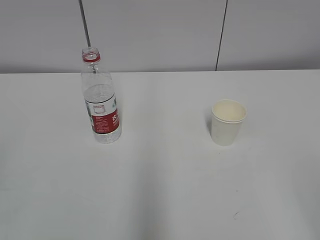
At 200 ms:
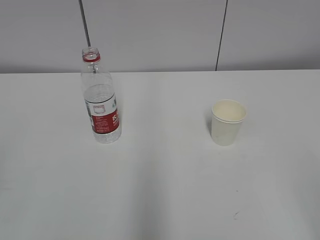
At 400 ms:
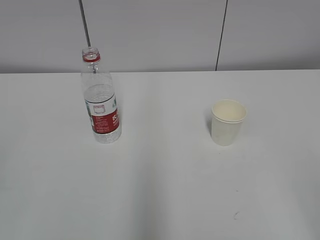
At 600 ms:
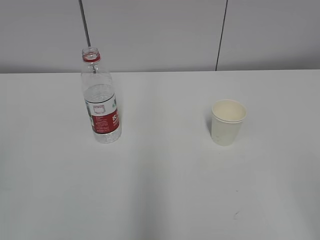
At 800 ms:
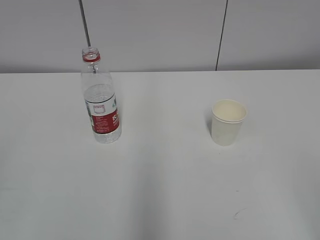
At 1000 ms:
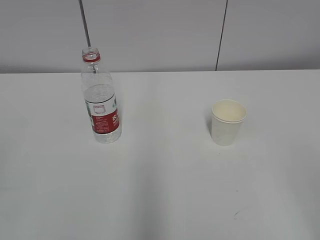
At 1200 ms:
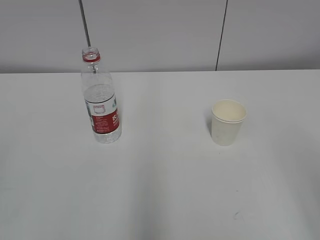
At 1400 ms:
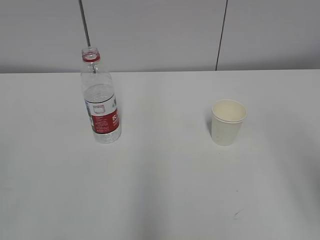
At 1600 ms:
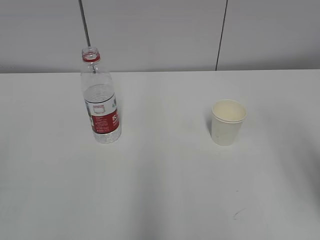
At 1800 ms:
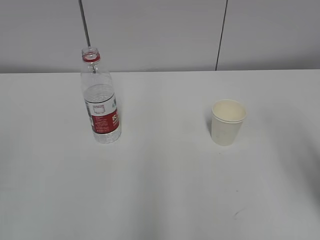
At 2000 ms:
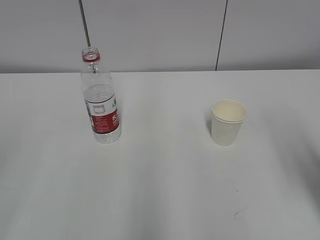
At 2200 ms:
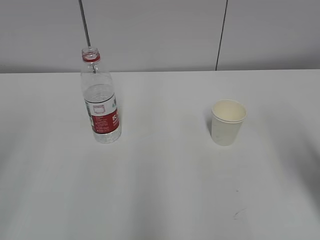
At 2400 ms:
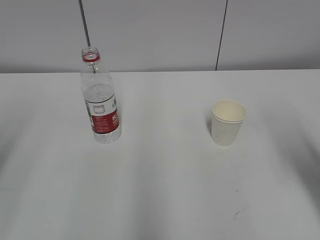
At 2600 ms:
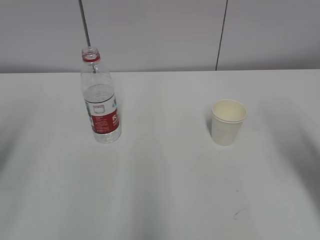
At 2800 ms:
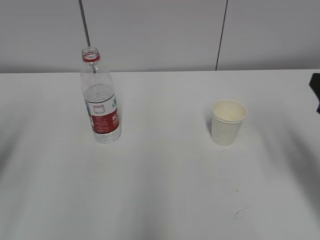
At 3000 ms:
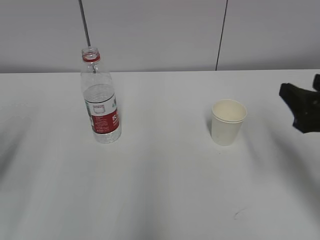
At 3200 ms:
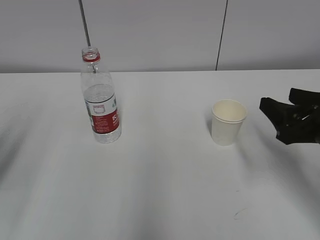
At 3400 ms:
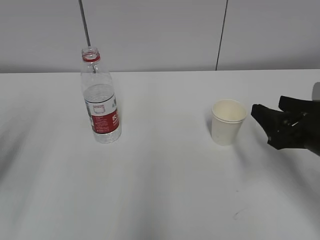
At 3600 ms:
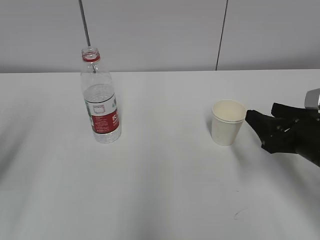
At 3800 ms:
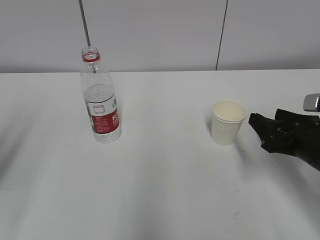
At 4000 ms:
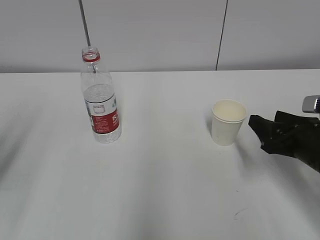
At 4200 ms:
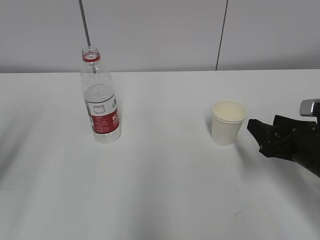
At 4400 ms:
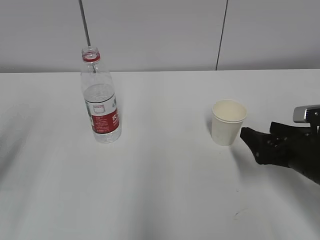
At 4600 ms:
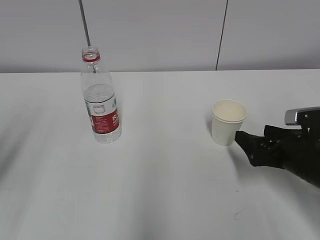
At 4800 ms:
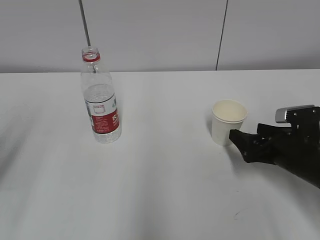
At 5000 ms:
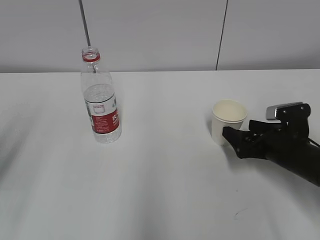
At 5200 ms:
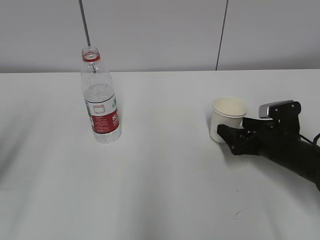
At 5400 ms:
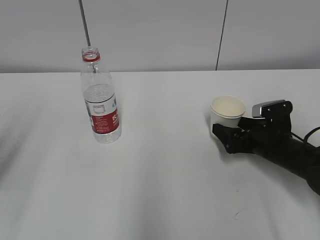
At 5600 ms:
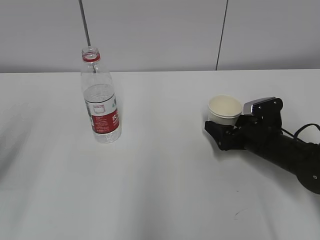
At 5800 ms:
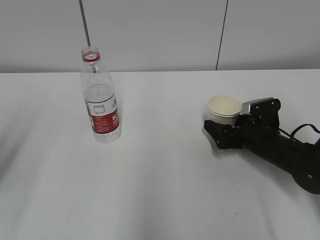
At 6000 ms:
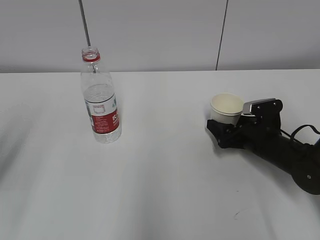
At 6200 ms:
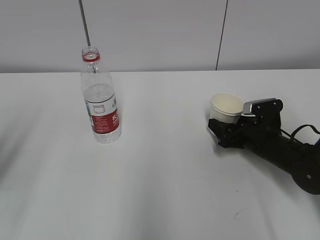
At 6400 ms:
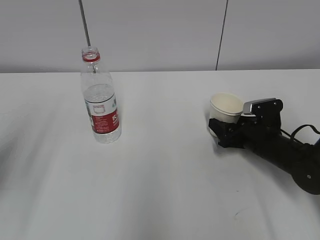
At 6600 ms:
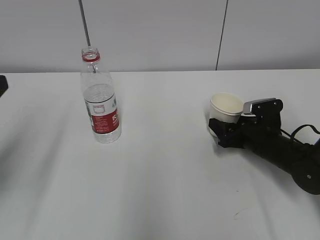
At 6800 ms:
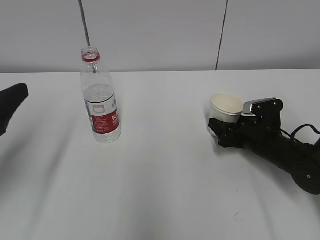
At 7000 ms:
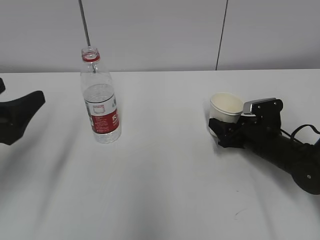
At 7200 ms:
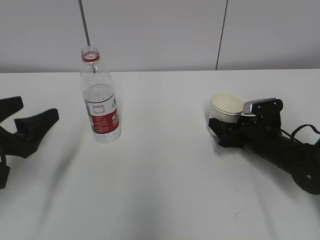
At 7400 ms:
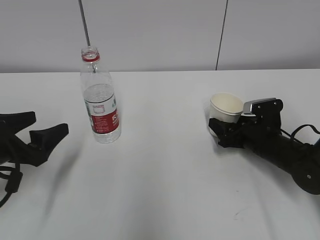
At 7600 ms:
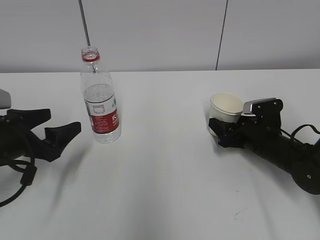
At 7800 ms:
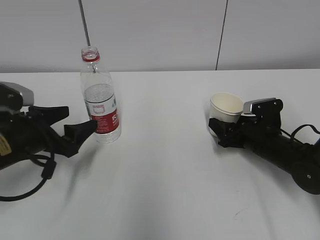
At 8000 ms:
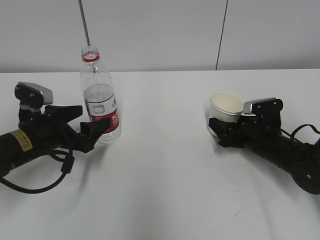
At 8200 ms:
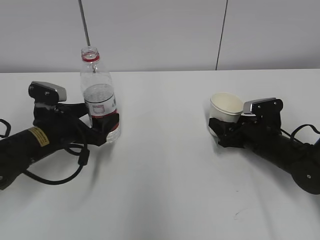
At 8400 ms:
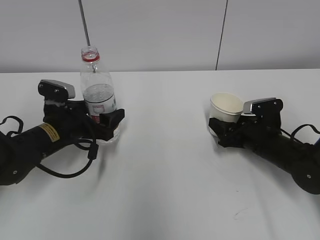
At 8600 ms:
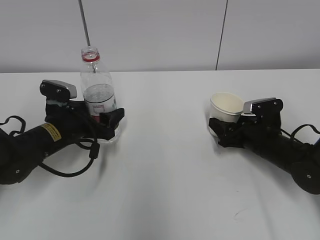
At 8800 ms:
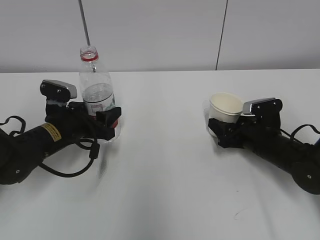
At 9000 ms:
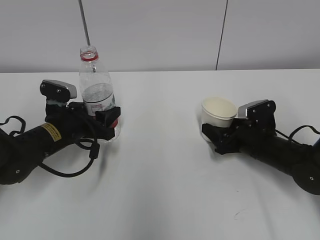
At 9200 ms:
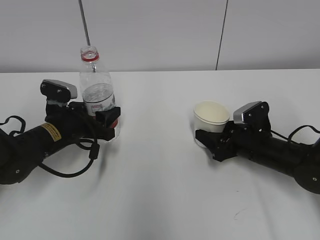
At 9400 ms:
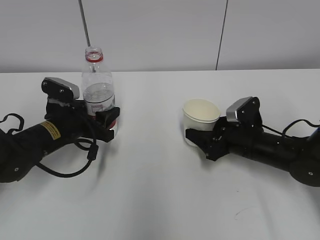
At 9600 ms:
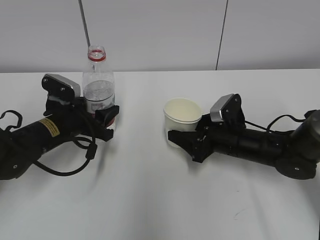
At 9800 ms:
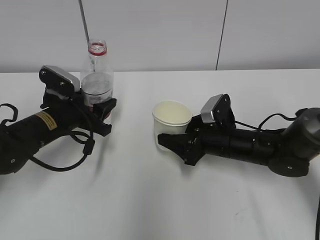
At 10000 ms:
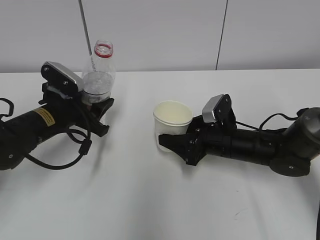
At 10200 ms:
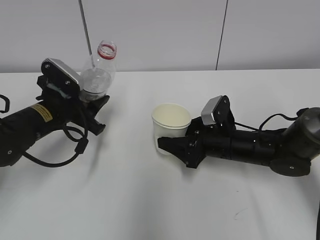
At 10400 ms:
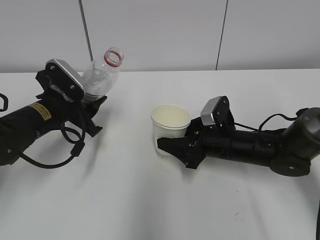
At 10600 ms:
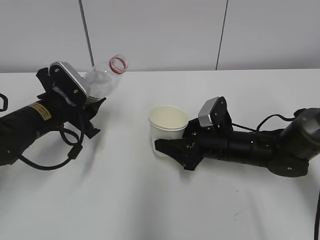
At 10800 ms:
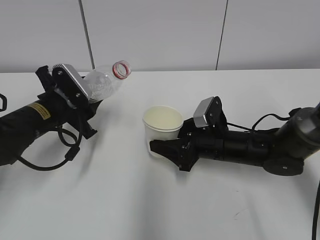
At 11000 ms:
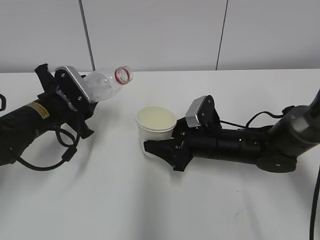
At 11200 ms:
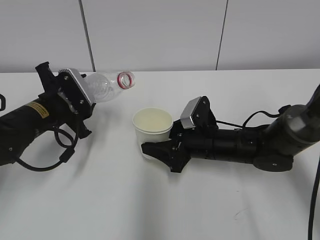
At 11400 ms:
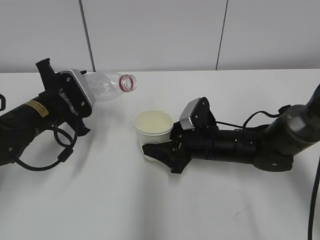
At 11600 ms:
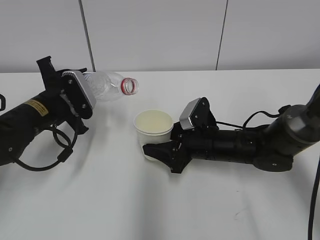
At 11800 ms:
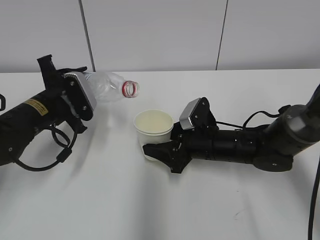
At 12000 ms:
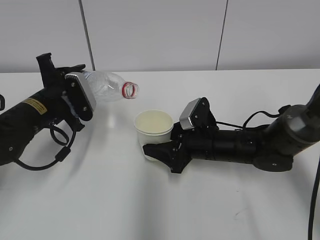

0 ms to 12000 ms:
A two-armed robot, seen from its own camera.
Step, 0 ms to 7200 ms: Grab the paper cup with the right hand.
Step, 7400 ms to 7800 ms: Grab the water bottle with the left hand.
Step, 8000 ms to 11200 ms: Lift the paper cup with the right hand.
1600 ms to 3000 ms: The right gripper heads forward and downward, covering roughly 15 cm. Meanwhile the left gripper goes some 15 cm forward.
3000 ms to 4400 ms: The right gripper moves downward, some 10 cm, and opens its fingers.
4400 ms to 6000 ms: The right gripper heads forward and downward, covering about 10 cm.
6000 ms to 7600 ms: The right gripper closes up; the left gripper goes approximately 15 cm downward and forward, and opens its fingers.
7600 ms to 9000 ms: The left gripper moves forward and to the right, approximately 10 cm, and closes.
9000 ms to 10400 ms: The right gripper goes about 10 cm to the left.

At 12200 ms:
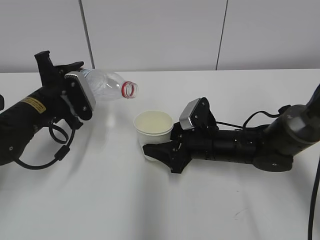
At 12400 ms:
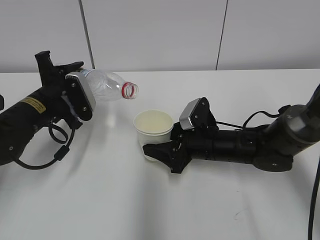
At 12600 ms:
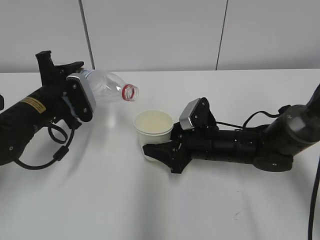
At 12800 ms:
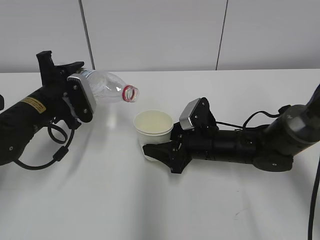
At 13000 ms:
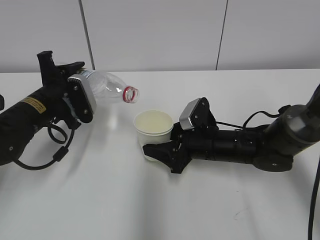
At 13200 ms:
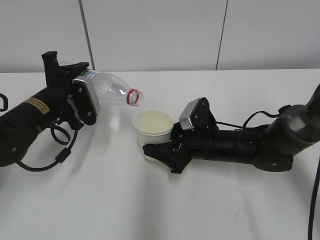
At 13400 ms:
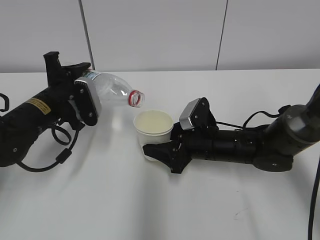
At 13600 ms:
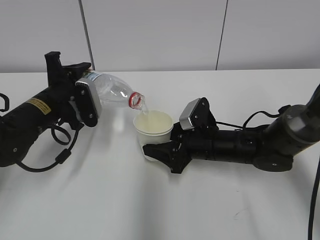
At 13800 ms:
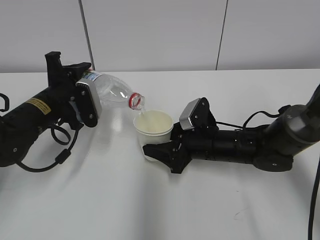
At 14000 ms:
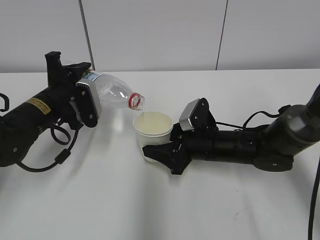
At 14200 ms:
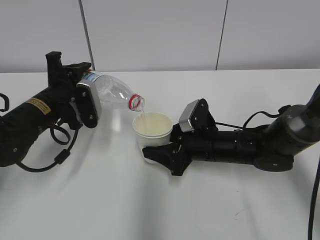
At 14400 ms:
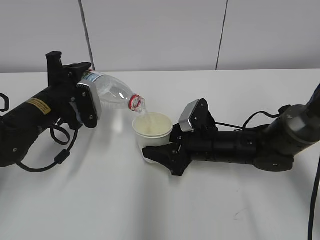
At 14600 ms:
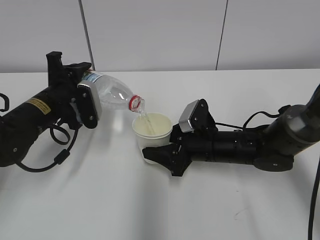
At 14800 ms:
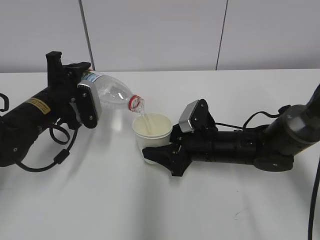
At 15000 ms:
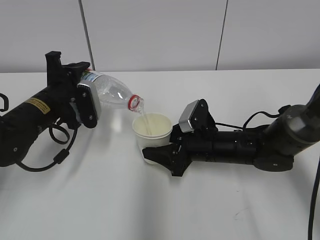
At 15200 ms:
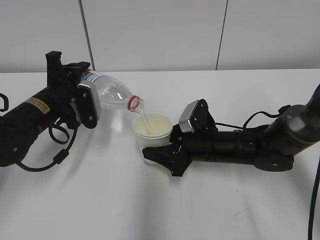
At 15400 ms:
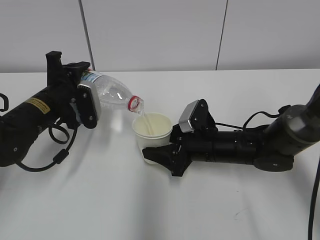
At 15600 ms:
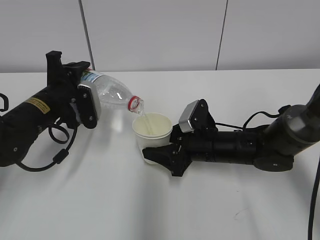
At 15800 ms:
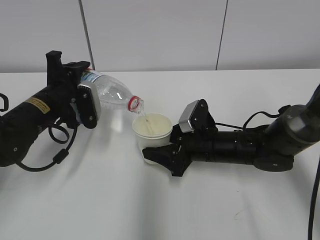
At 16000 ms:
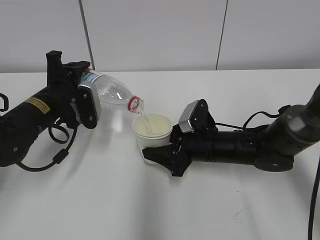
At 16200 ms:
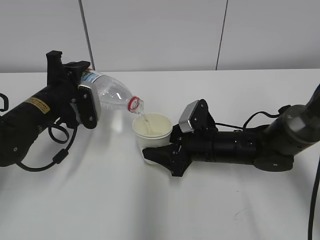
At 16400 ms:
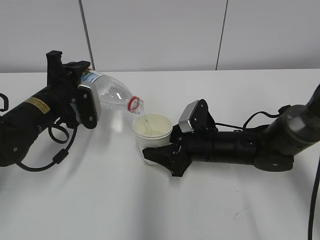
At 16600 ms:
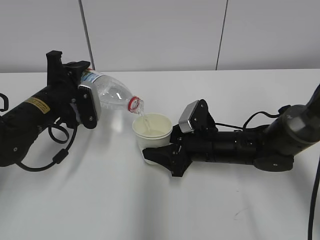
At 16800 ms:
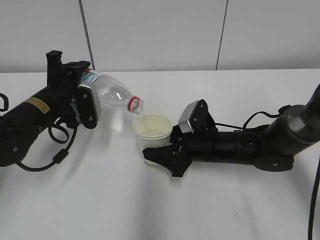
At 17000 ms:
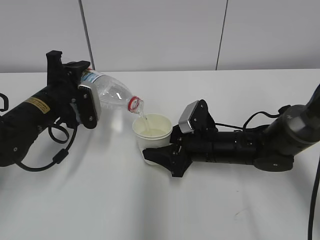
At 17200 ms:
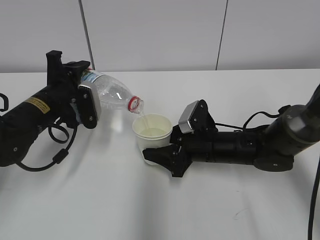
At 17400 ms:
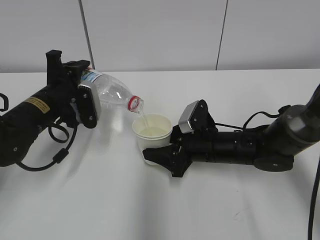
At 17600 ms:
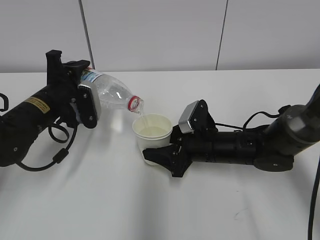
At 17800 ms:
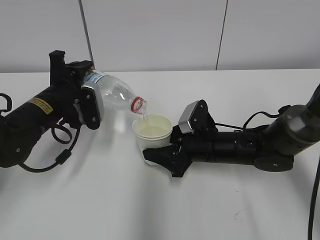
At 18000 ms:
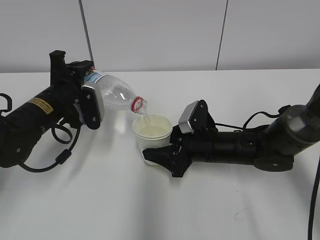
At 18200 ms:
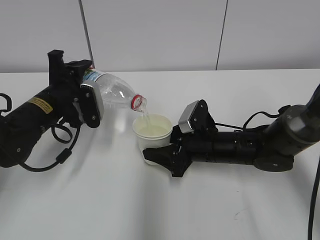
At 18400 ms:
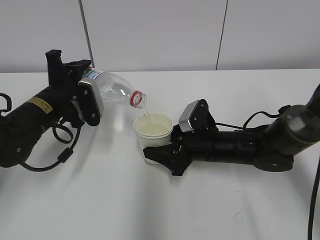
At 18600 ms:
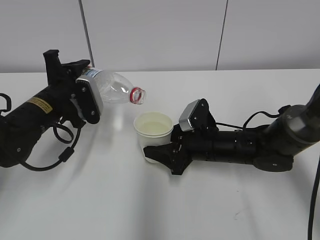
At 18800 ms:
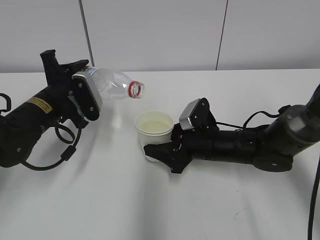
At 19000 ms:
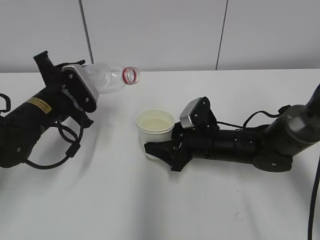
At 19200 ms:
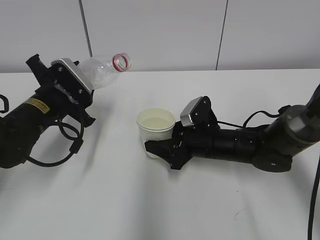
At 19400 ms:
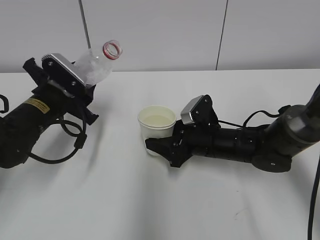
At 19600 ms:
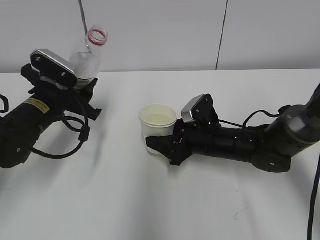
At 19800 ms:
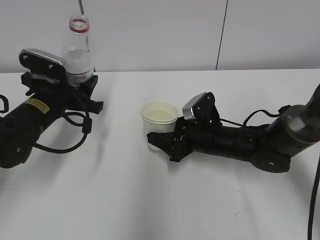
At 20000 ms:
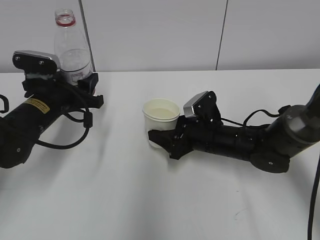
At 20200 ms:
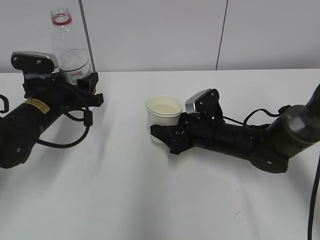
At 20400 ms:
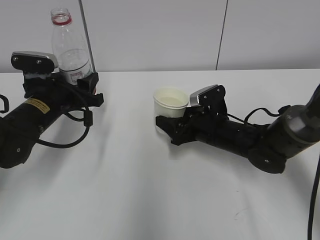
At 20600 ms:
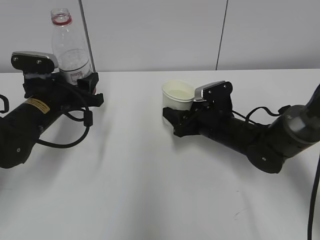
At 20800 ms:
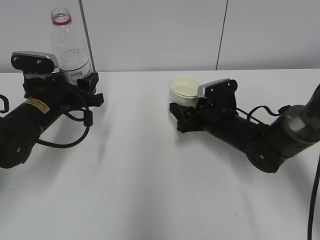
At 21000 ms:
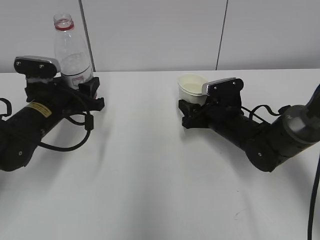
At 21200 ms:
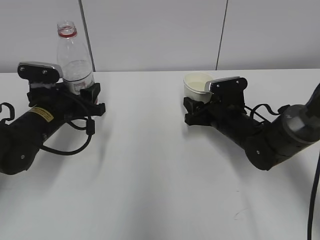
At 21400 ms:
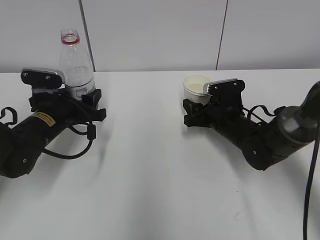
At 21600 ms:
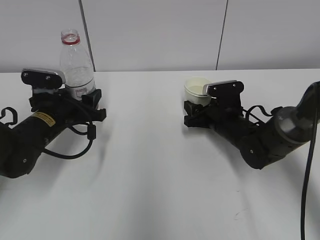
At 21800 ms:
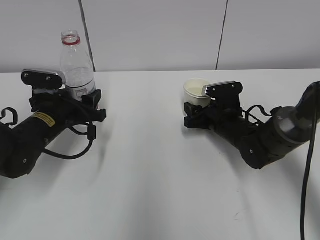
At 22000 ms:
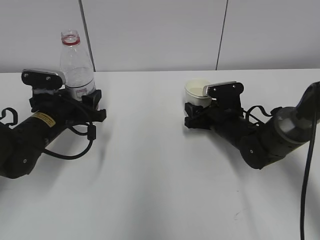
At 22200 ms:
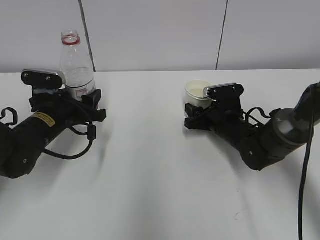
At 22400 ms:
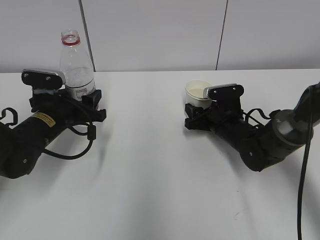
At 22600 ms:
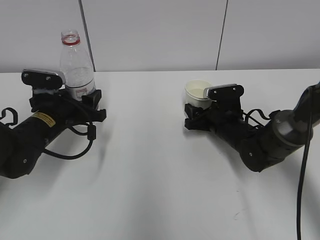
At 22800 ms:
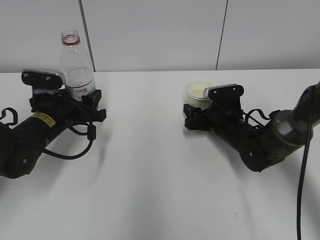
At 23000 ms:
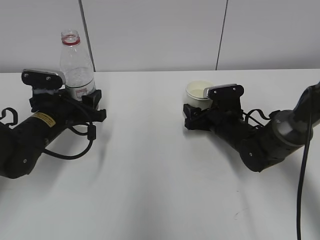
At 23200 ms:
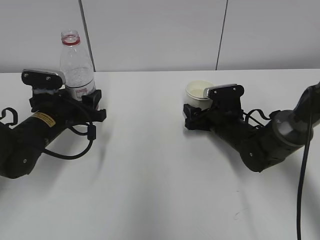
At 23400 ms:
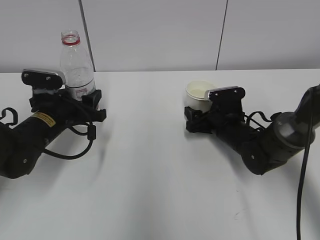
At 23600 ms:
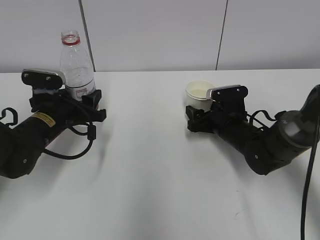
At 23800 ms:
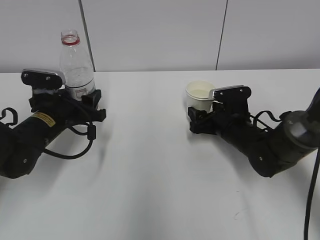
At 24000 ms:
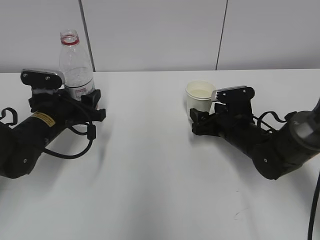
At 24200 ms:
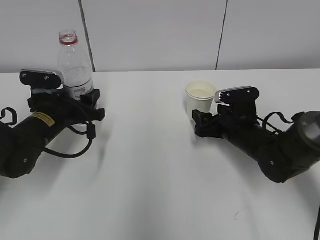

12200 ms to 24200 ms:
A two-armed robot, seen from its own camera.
Step, 12200 ms to 15400 ms: Fill water with the right hand.
Step, 12200 ms to 15400 ms: Pour water with the left hand.
Step, 16800 ms to 19000 ms: Place the paper cup with the right hand.
Step, 19200 ms to 21200 ms: Place the water bottle with the left hand.
12200 ms to 13800 ms: The grippers move only a little.
13800 ms to 15200 ms: Both grippers stay put.
15200 ms to 18200 ms: Both grippers stay put.
19800 ms to 21200 ms: The right gripper shifts by approximately 5 cm.
21200 ms to 22600 ms: There are only small adjustments of the grippers.
22600 ms to 24200 ms: The right gripper opens.
